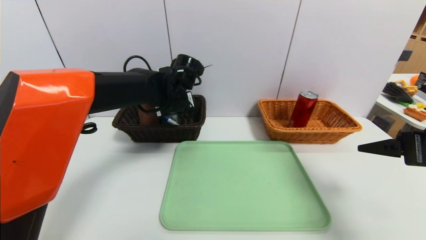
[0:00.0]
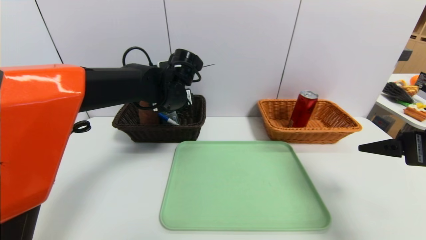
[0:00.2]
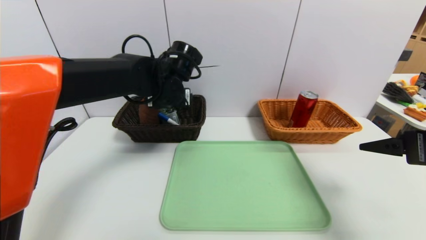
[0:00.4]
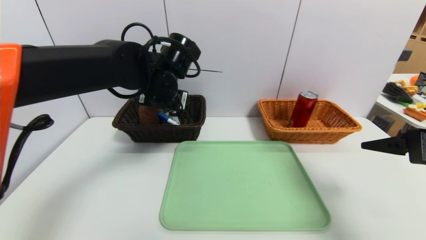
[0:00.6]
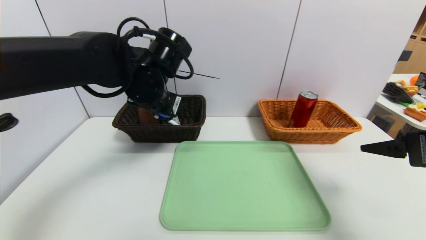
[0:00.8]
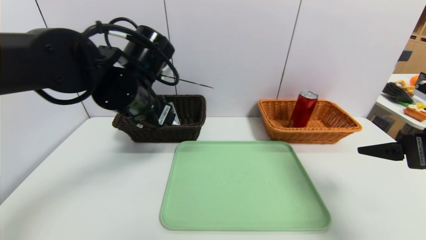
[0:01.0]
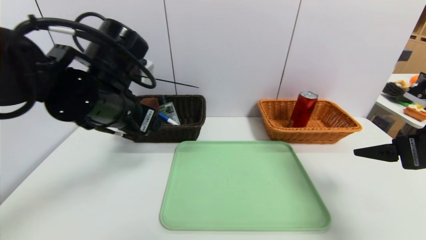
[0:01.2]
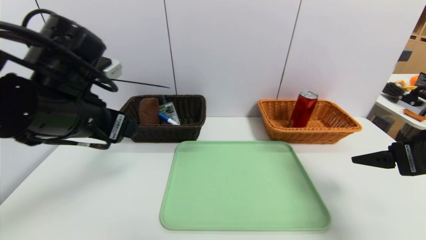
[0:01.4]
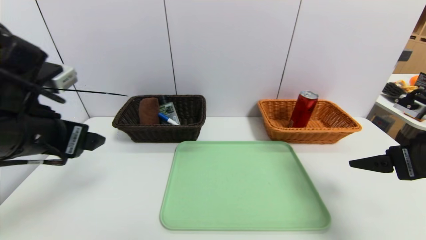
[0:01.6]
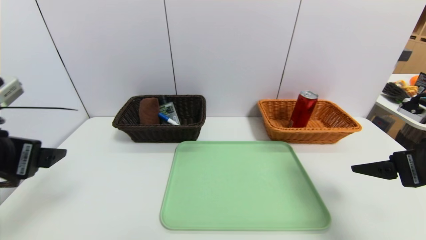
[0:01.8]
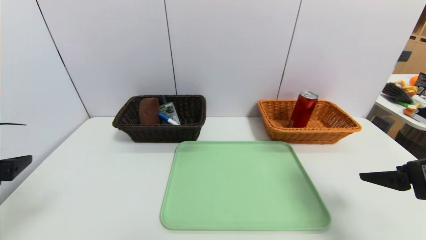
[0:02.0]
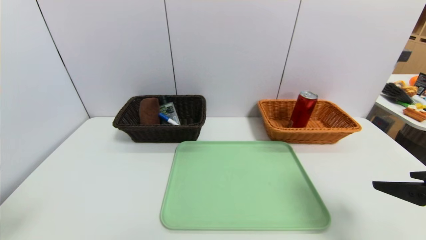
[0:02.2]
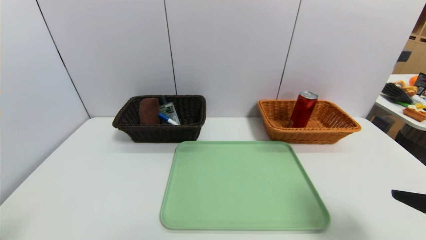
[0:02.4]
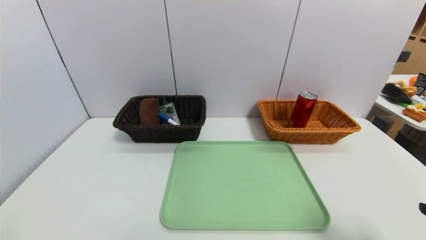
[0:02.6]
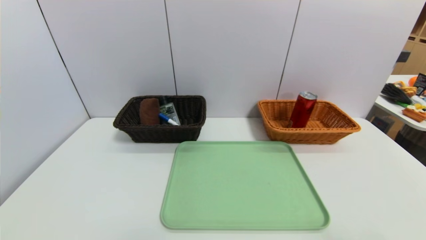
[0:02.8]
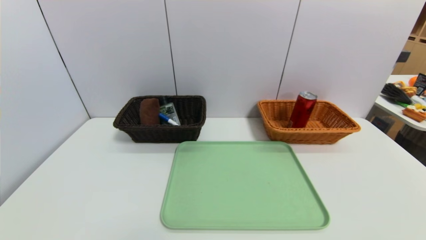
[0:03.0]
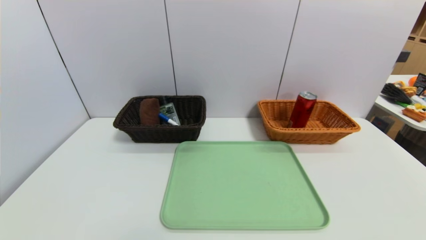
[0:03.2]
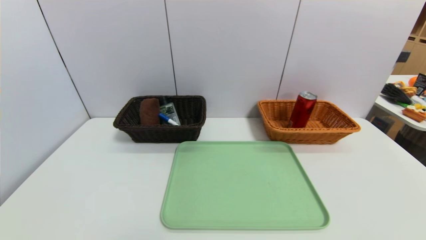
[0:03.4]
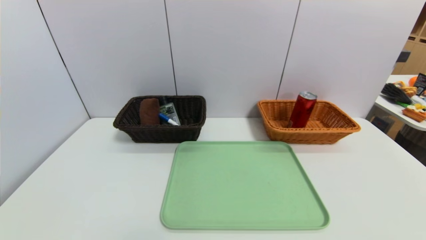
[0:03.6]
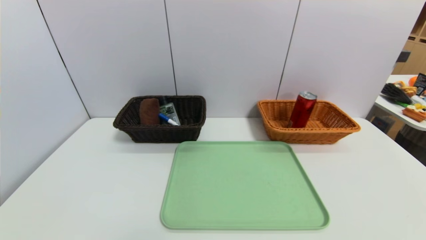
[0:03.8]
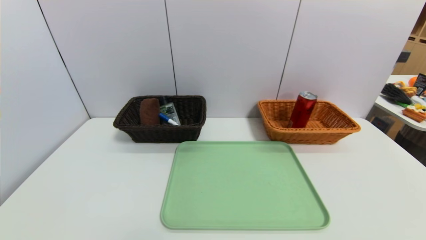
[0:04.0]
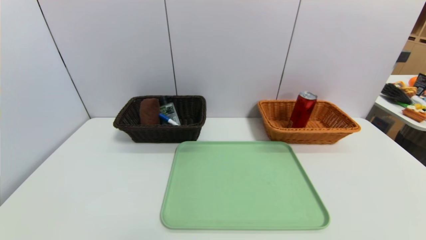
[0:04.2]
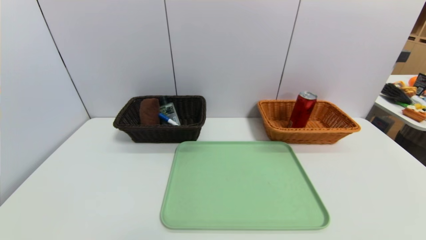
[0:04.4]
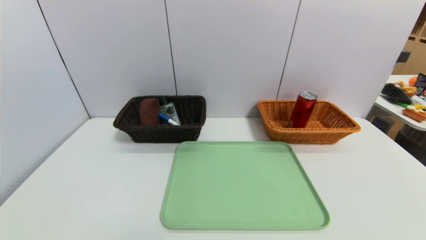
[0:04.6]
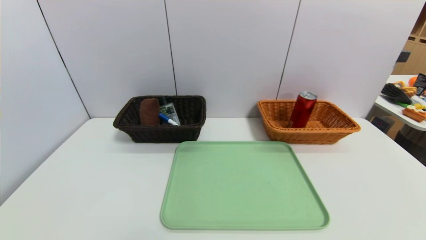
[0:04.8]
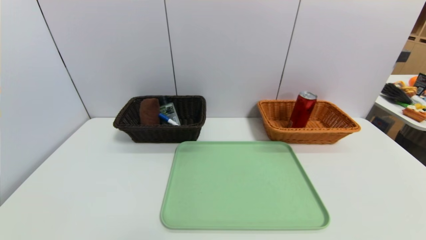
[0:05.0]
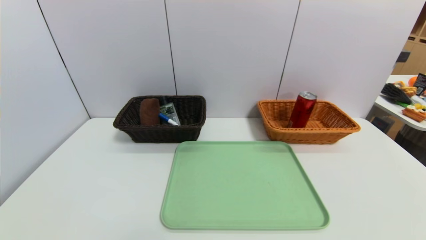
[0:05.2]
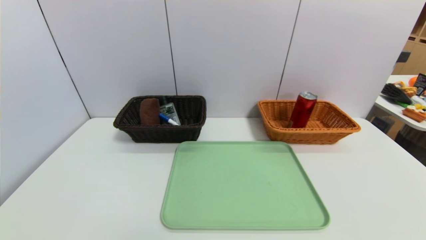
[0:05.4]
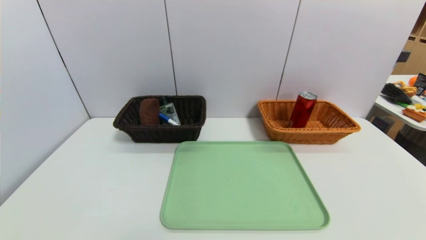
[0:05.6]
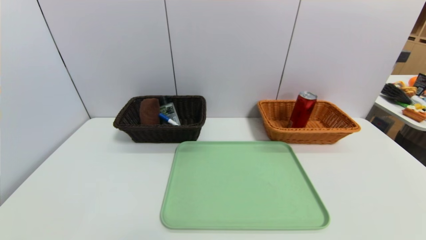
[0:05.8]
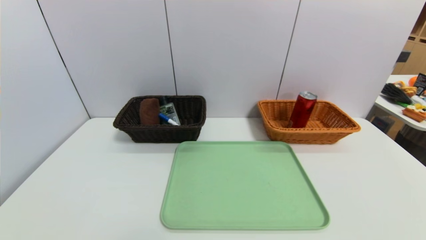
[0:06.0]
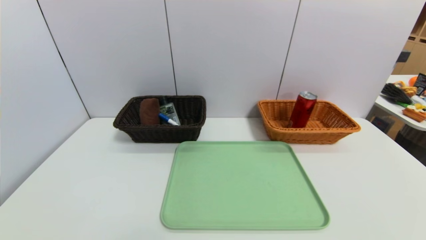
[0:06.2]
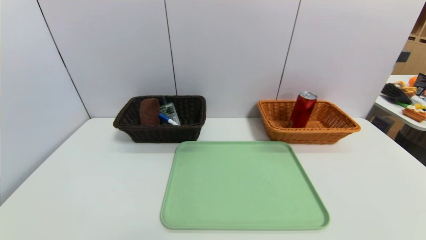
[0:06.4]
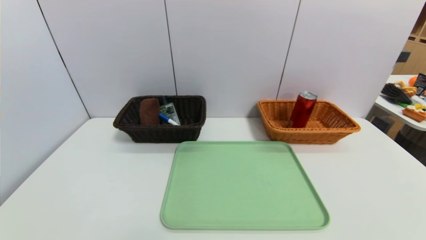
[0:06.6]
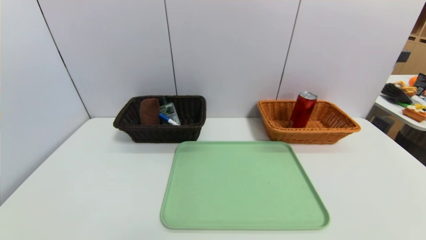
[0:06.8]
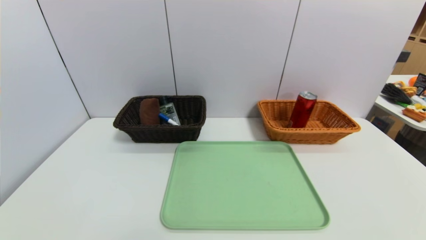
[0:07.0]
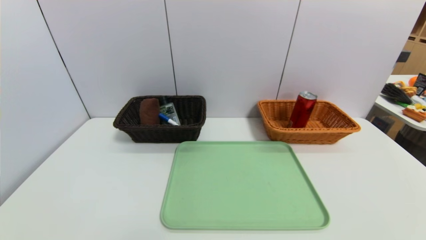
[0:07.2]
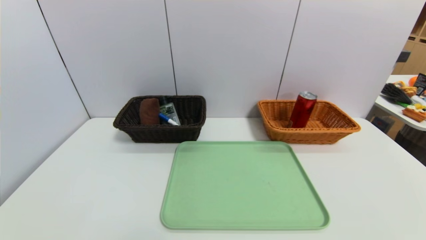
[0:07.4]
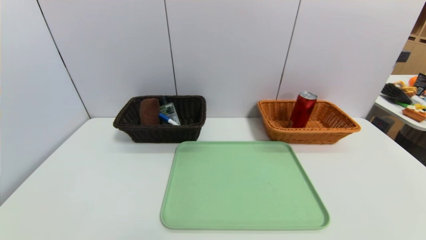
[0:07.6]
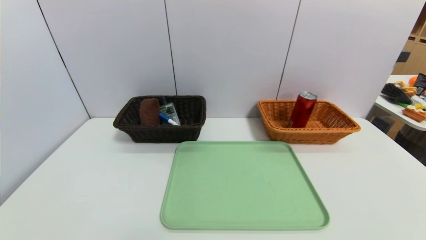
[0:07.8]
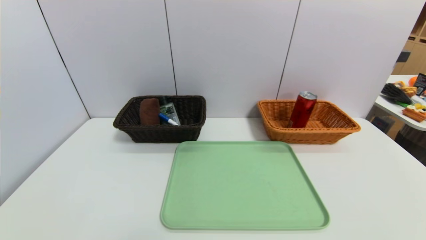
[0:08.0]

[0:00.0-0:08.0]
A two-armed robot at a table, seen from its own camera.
Task of the whole recording: place the food in the right basket with the right gripper, and place the non food items in the left basket with the left gripper.
0:00.0 to 0:01.6: The left gripper travels backward and to the left by approximately 25 cm.
0:01.6 to 0:03.2: The left gripper is displaced backward and downward by approximately 25 cm, while the right gripper shifts some 20 cm backward.
